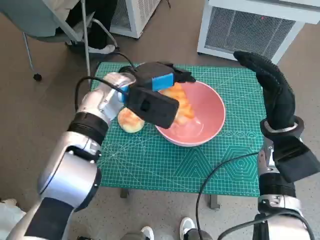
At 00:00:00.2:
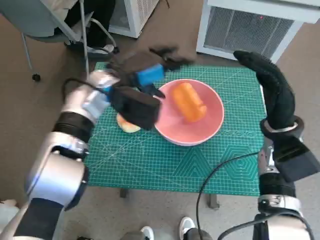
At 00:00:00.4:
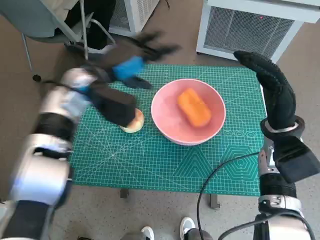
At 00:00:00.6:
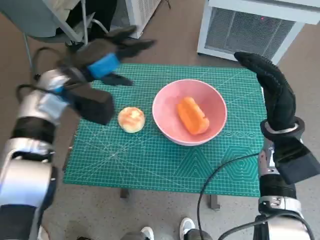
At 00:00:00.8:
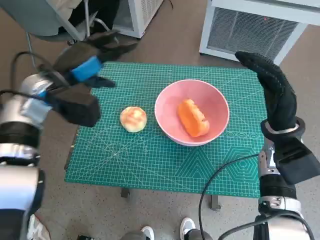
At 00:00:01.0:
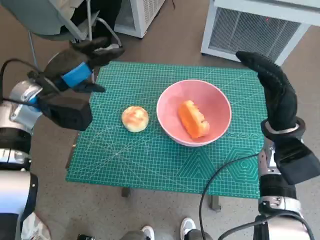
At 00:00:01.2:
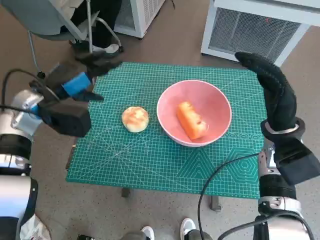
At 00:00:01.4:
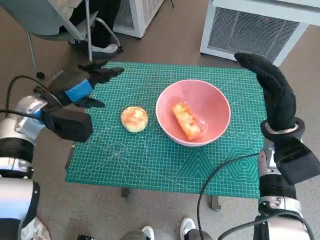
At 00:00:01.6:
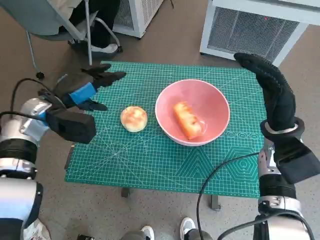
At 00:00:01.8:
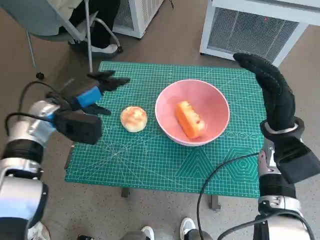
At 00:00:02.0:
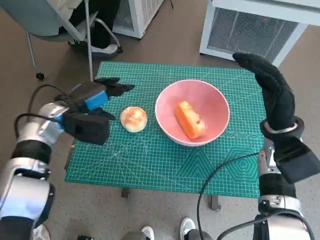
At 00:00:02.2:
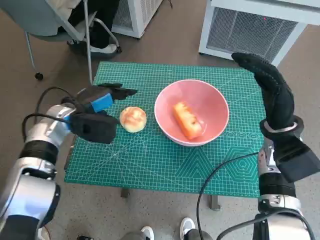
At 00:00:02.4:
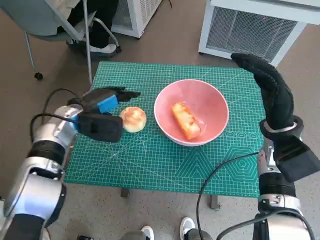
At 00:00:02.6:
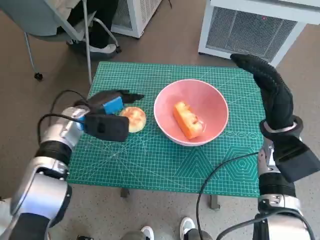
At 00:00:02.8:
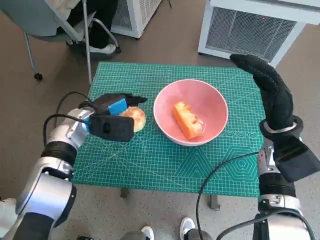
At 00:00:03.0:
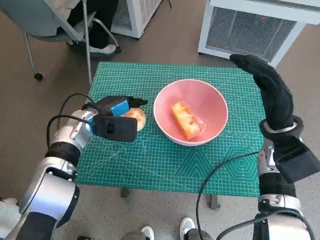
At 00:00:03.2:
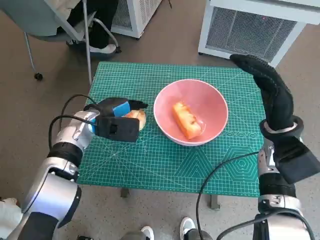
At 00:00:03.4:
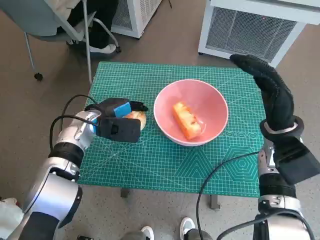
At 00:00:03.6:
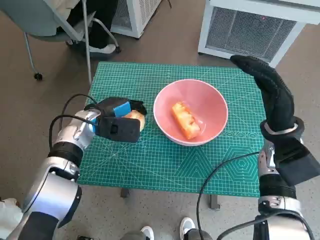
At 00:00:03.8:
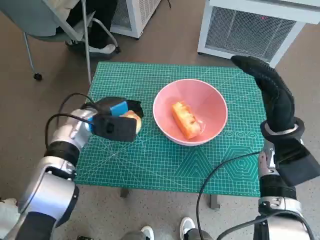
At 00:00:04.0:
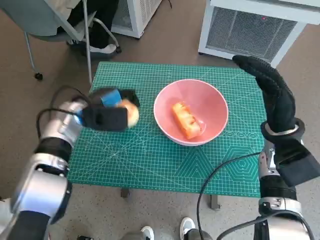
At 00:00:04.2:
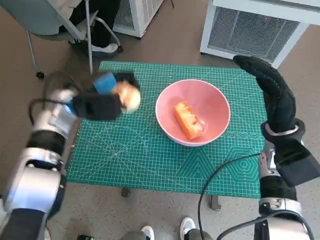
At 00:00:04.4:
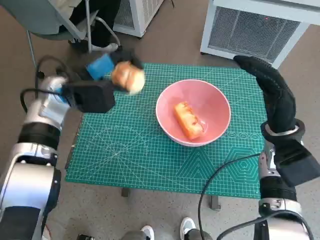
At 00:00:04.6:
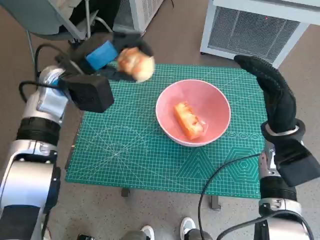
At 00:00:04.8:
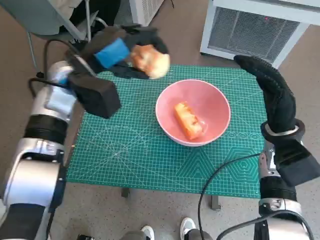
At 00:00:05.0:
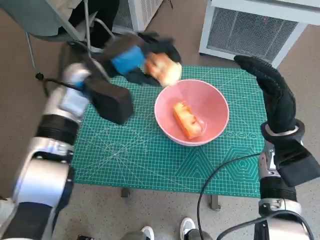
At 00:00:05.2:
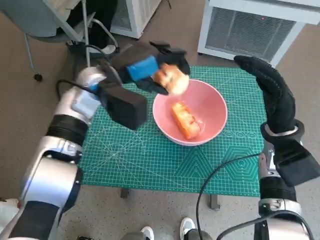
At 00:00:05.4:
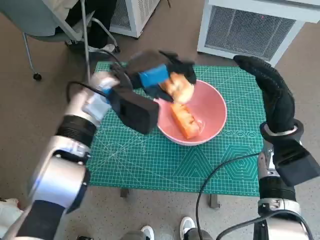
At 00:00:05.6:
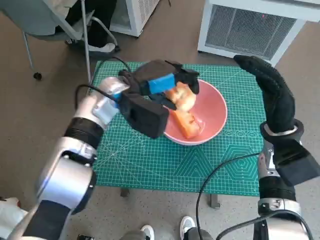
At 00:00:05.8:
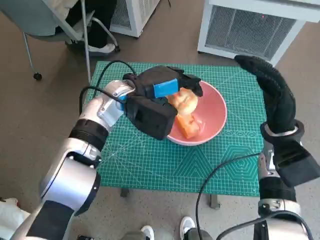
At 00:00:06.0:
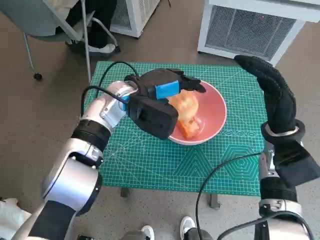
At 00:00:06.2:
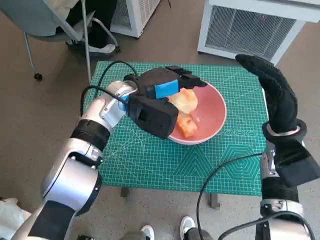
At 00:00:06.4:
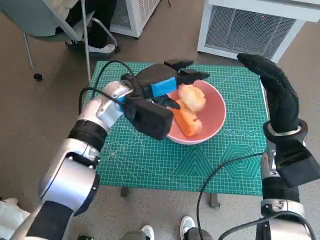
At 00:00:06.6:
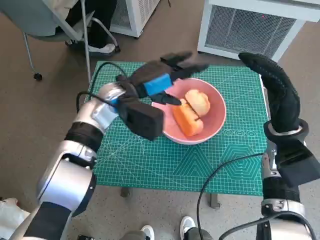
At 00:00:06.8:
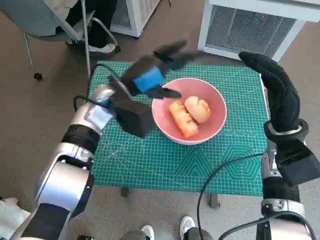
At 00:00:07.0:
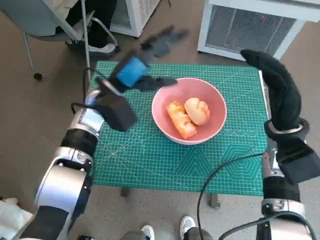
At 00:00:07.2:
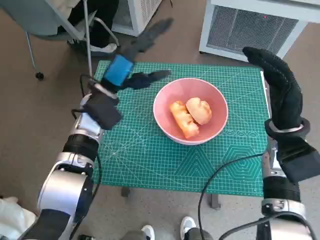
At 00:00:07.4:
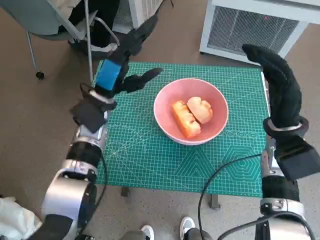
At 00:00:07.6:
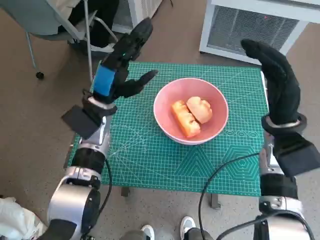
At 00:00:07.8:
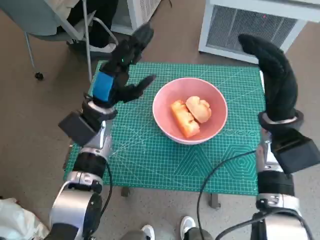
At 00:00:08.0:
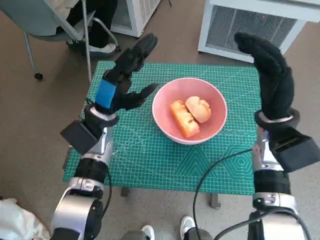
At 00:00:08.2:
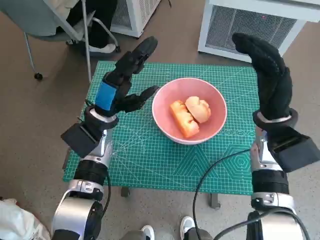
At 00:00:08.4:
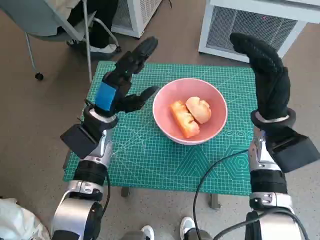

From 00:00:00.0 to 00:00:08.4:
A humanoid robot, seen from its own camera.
Task of the whole recording: Push the bowl to the center of the table and put the bread into the bowl.
Step, from 00:00:00.2 to 00:00:03.4: Grasp the round bread with left hand.
Step, from 00:00:03.8 to 00:00:06.2: Place the round bread in pink bowl with left hand.
From 00:00:00.0 to 00:00:01.4: The left hand is displaced to the left by roughly 15 cm.
From 00:00:01.4 to 00:00:02.8: The left hand is displaced to the right and downward by about 10 cm.
From 00:00:04.2 to 00:00:05.6: The left hand heads to the right, covering roughly 10 cm.
From 00:00:07.0 to 00:00:08.4: The left hand moves roughly 5 cm.
